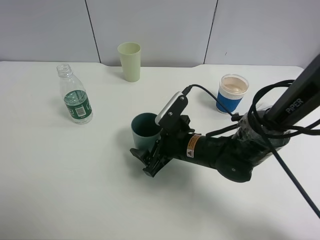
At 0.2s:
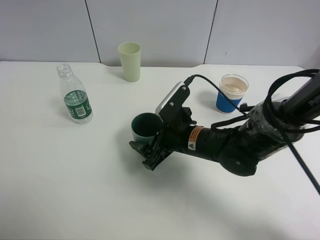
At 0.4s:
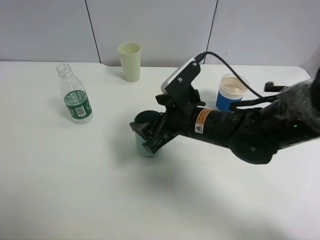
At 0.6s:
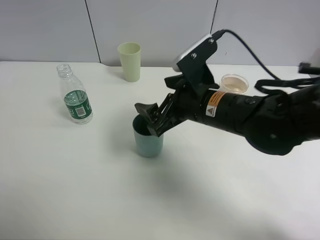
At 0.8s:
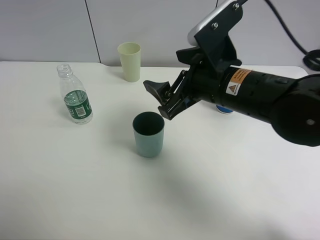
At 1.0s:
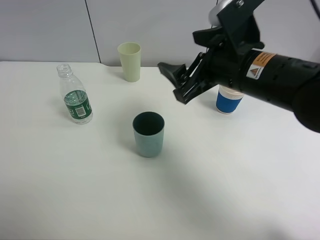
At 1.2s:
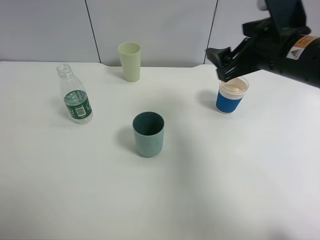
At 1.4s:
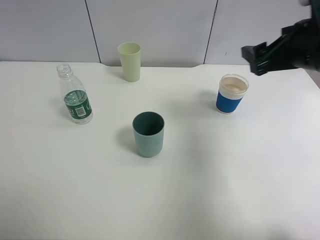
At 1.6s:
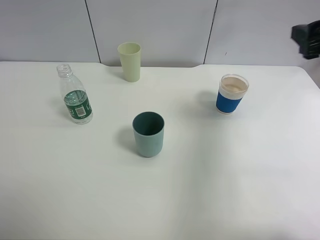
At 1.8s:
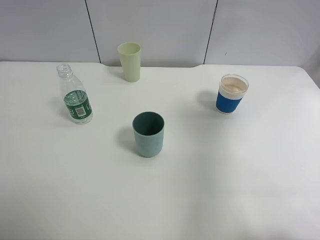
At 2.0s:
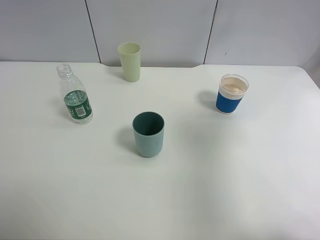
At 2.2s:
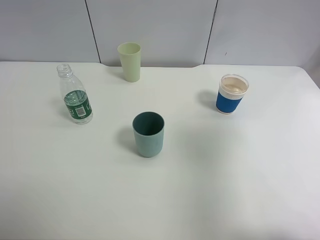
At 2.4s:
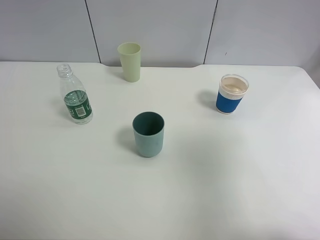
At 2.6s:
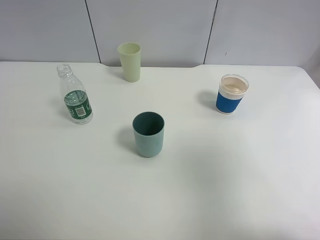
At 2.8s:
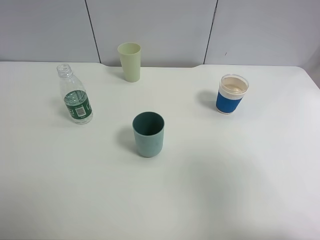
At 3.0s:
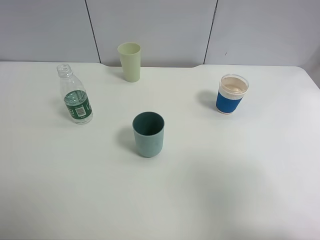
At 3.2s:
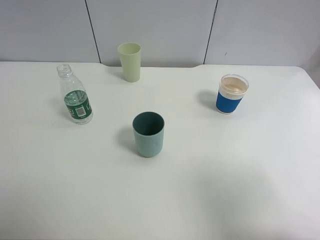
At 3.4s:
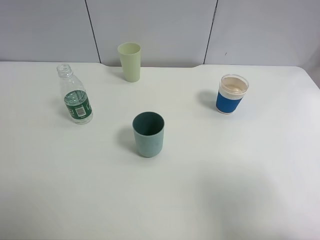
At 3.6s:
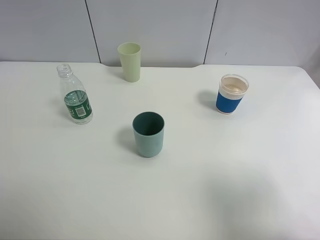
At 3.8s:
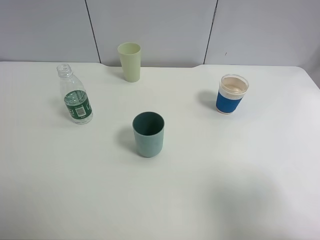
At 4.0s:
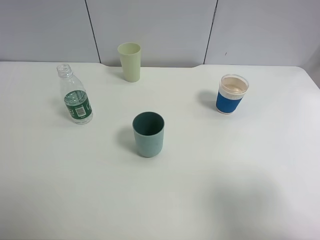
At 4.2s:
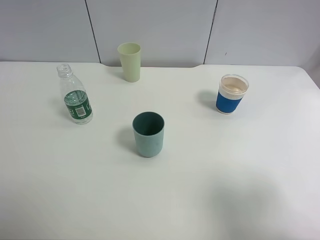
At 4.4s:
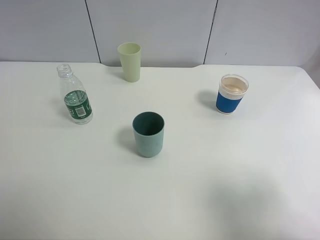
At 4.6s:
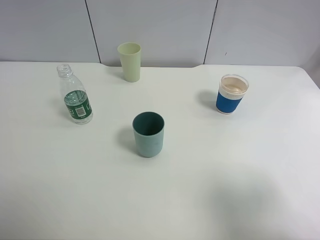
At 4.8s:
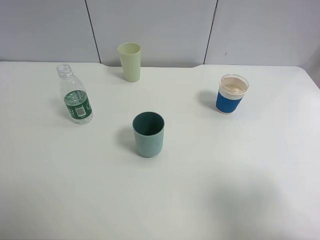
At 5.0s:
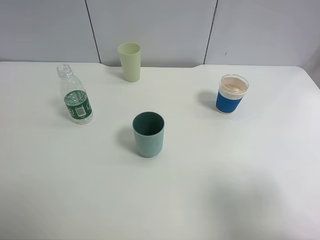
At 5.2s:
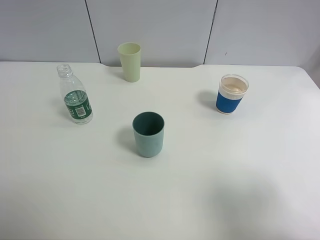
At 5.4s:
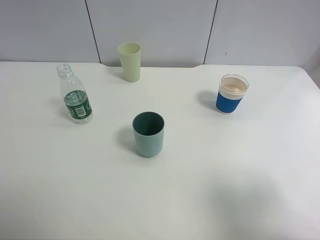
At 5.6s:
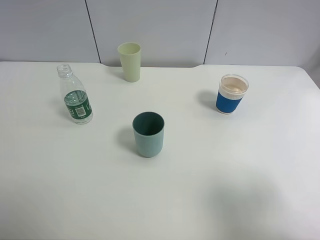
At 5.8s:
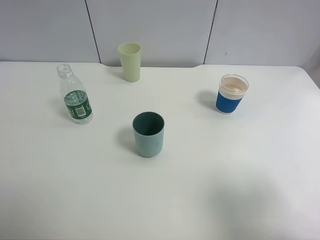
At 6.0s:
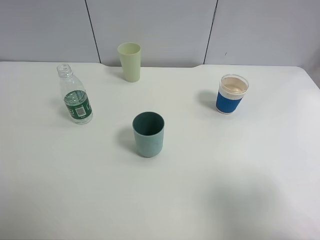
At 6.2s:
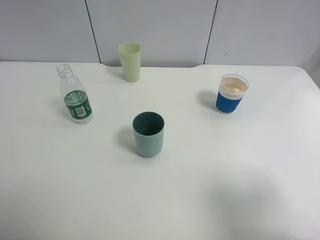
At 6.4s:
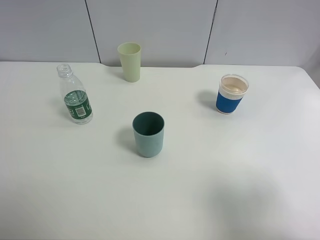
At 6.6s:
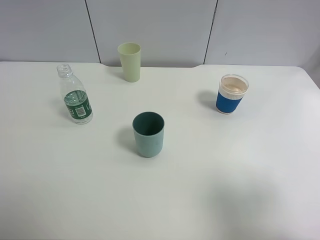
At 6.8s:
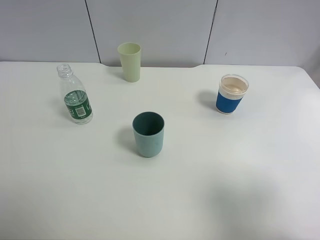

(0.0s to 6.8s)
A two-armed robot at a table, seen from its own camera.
Task of the whole recording: use a clamp to hold the bottle of the drink, pour the beverage into a random cup, then clamp the cup containing the drink and pour the drink into another random cup.
0.0s - 1.4s: The right gripper moves upward and to the right, about 25 cm.
1.4s - 2.8s: The right gripper goes some 25 cm backward.
2.8s - 4.0s: The right gripper goes roughly 5 cm downward.
4.0s - 6.8s: Both grippers stay put.

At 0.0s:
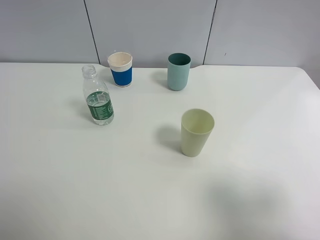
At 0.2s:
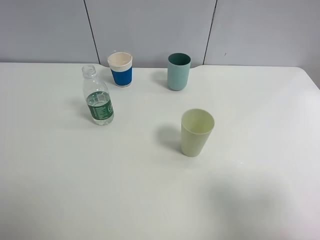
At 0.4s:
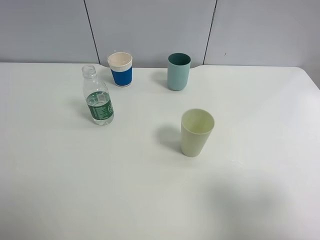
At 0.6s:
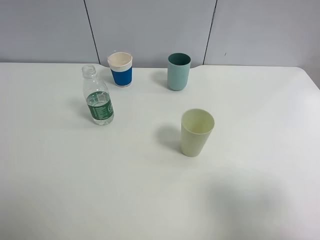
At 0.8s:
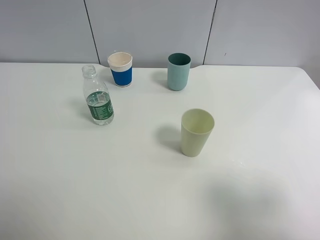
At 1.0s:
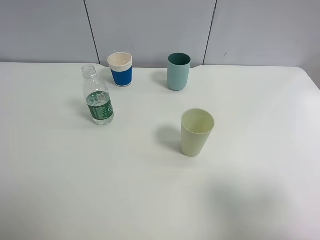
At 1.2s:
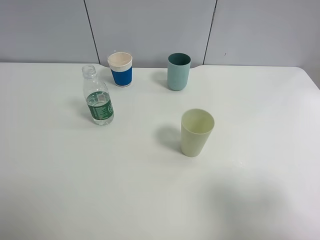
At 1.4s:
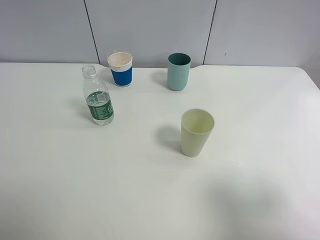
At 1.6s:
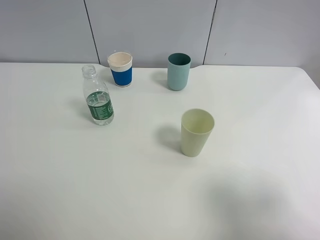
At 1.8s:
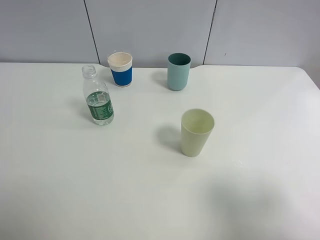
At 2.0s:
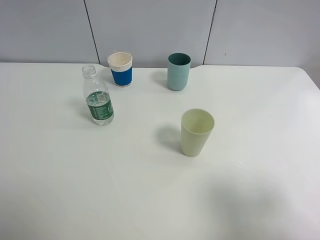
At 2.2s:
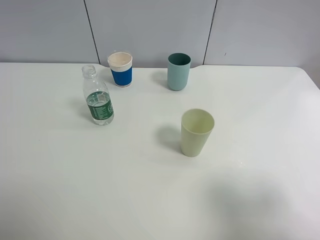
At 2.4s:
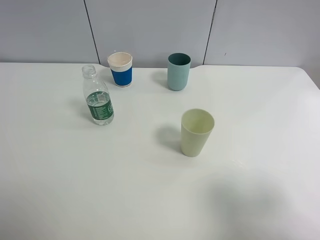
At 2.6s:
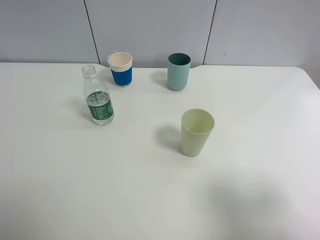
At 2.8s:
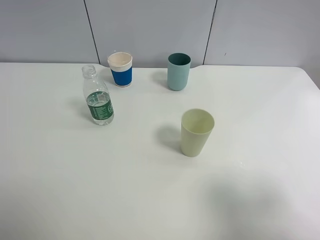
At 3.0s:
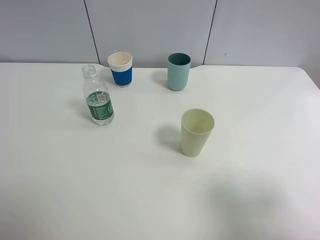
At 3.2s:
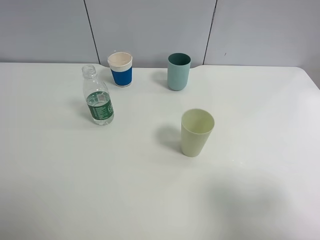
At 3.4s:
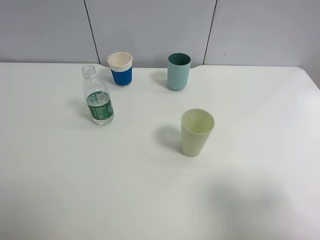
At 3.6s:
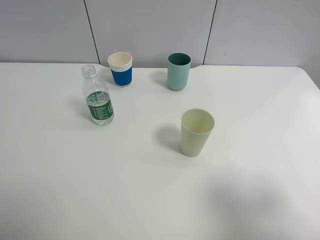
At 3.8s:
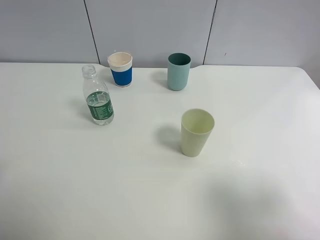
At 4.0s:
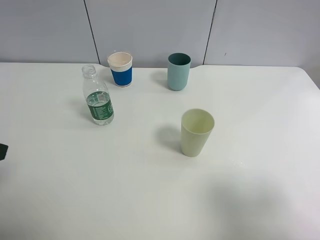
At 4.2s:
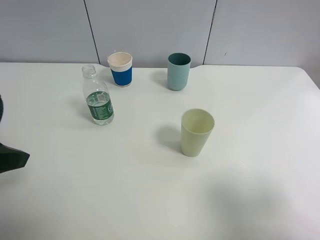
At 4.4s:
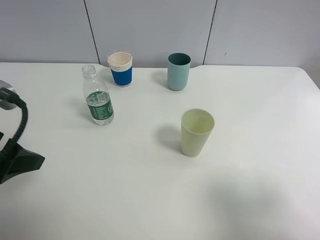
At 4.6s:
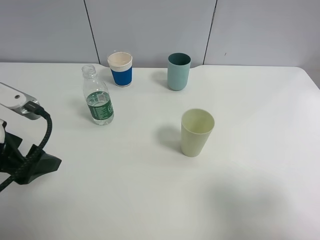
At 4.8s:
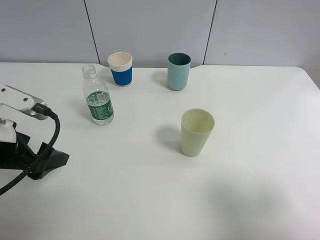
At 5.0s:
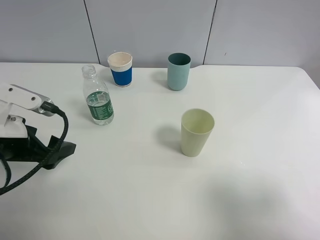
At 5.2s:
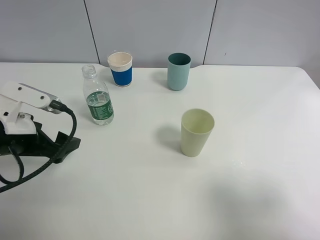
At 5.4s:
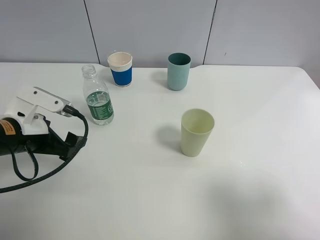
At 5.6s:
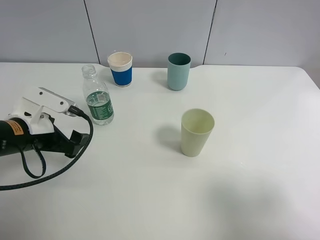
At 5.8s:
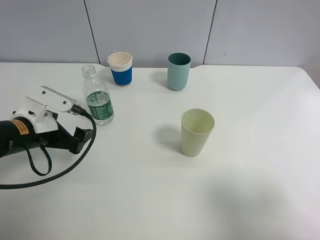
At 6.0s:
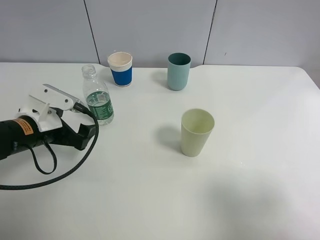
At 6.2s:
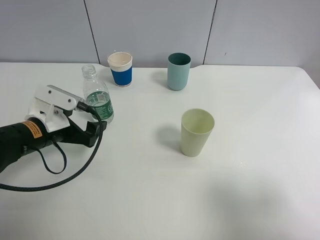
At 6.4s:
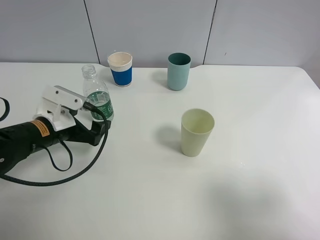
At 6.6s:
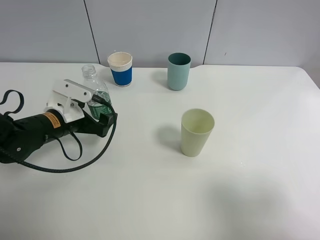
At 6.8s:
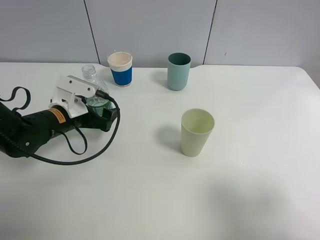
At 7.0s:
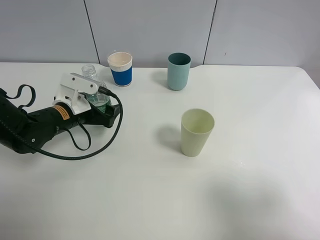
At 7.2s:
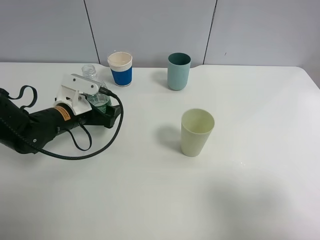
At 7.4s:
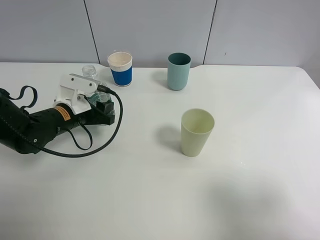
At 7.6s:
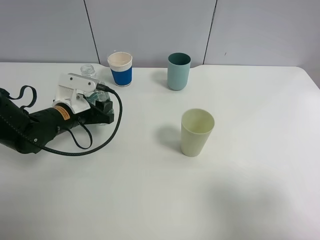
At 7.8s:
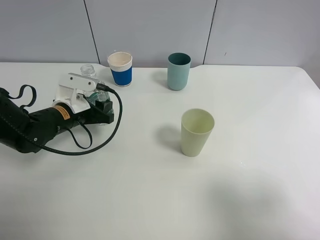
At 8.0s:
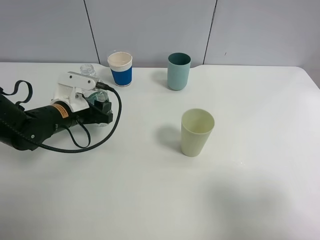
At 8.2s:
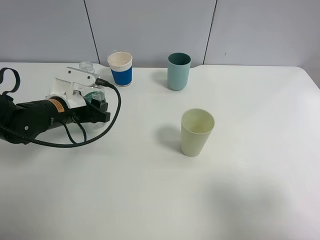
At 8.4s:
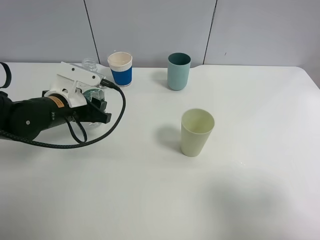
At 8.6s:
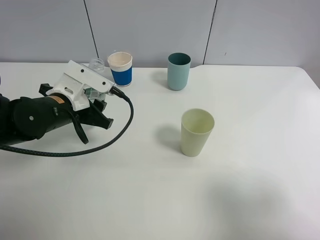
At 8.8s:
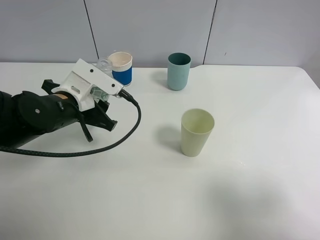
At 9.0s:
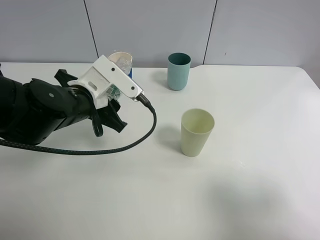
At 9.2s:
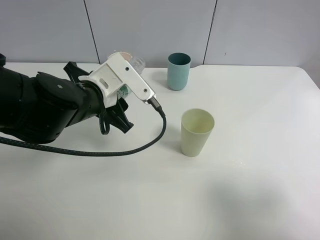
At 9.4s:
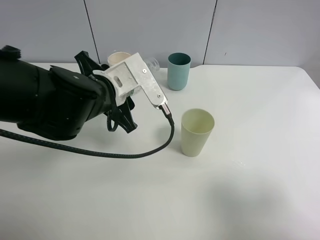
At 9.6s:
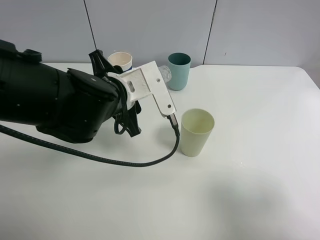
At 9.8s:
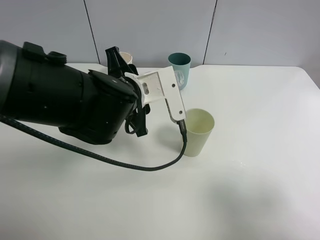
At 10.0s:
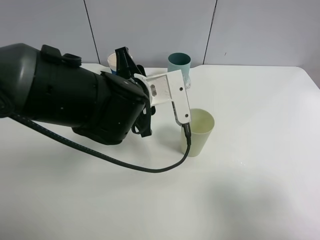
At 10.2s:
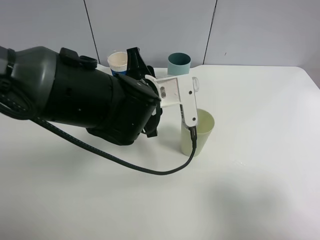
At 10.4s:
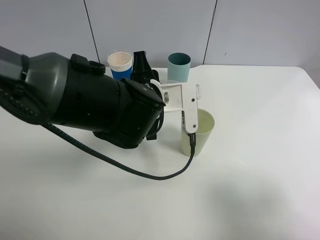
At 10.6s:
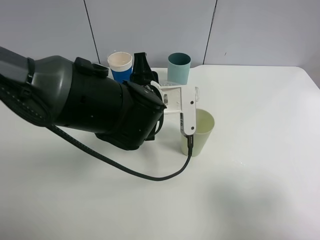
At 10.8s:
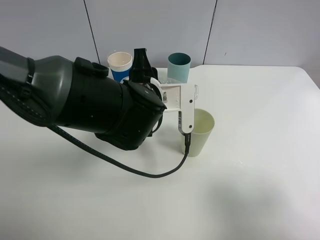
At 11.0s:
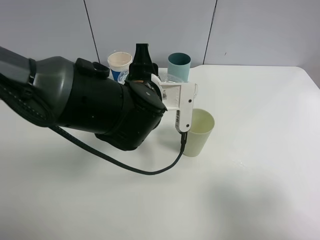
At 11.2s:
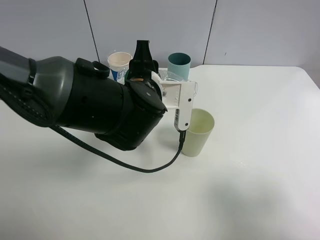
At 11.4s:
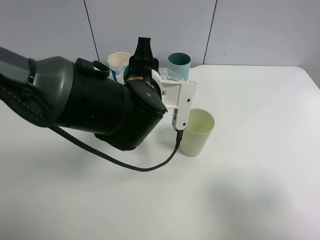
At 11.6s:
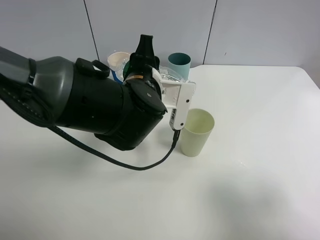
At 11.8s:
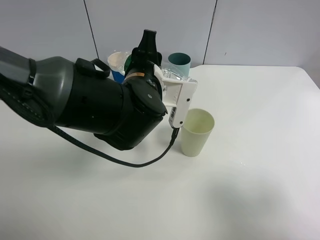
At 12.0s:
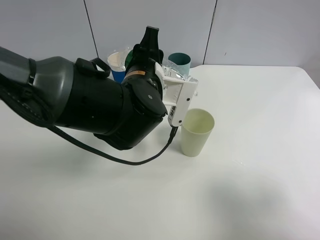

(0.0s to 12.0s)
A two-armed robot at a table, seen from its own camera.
Task of the whole recording: use a clamp to hold the bottle of the drink, pour the beverage into a random cup, then clamp the cup containing the drink and pour the drink into another random cup.
Step, 0.0s - 8.2s: Pick up the water bottle with left gripper.
0.0s - 3.0s: Neither gripper changes place.
3.0s - 4.4s: The left gripper shifts roughly 15 cm forward and to the right.
4.4s - 6.0s: The left gripper is displaced downward and forward by some 15 cm.
6.0s - 7.6s: The left gripper goes some 5 cm forward, and closes.
7.6s - 9.0s: The left gripper moves upward and to the right, about 10 cm.
9.0s - 10.4s: The left gripper shifts approximately 10 cm to the right.

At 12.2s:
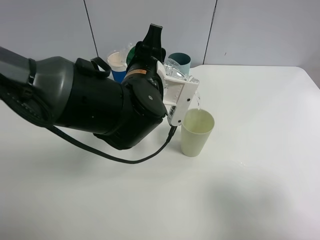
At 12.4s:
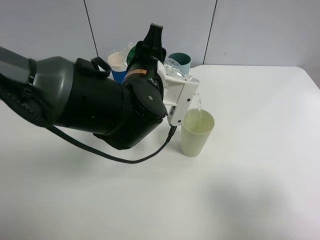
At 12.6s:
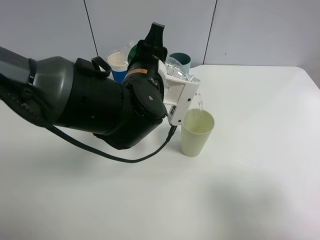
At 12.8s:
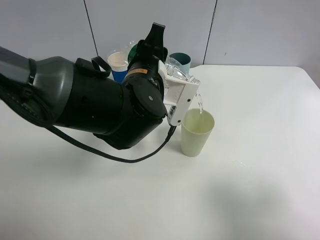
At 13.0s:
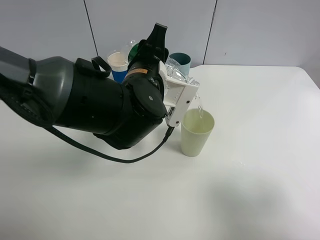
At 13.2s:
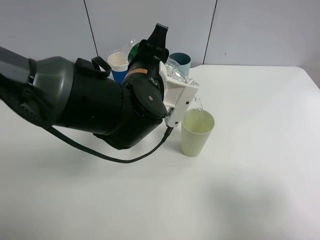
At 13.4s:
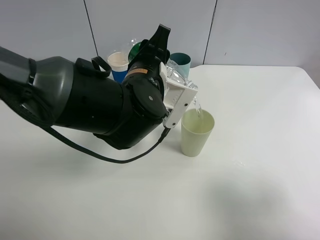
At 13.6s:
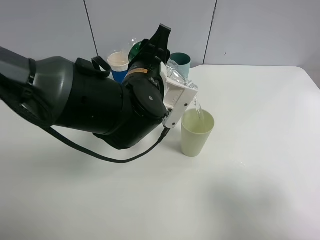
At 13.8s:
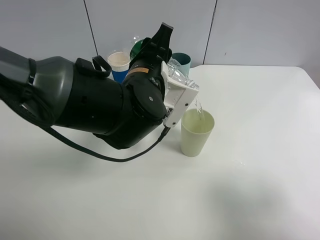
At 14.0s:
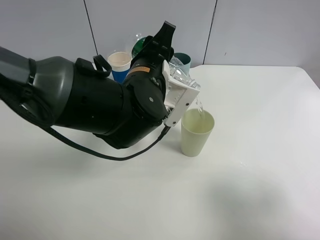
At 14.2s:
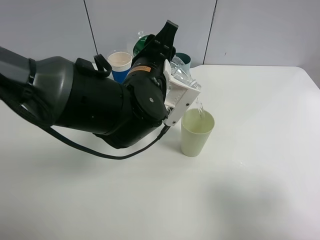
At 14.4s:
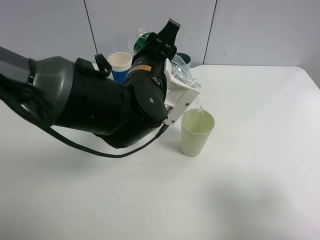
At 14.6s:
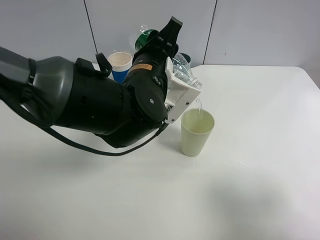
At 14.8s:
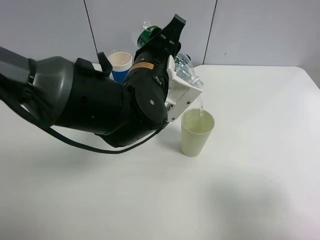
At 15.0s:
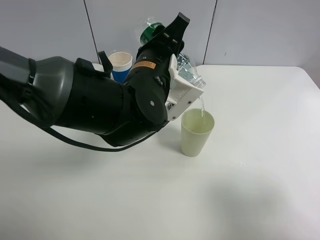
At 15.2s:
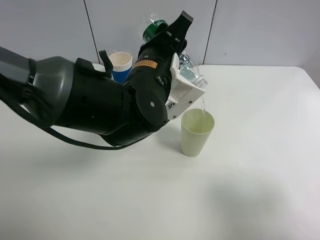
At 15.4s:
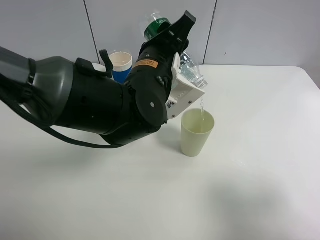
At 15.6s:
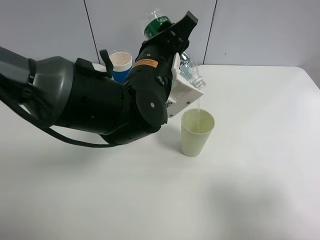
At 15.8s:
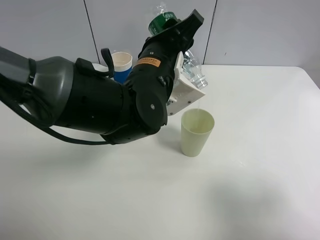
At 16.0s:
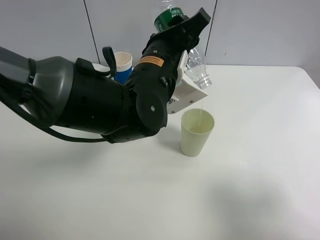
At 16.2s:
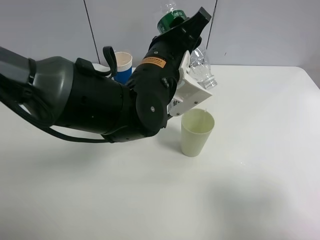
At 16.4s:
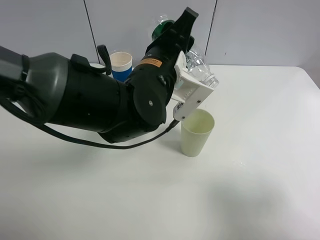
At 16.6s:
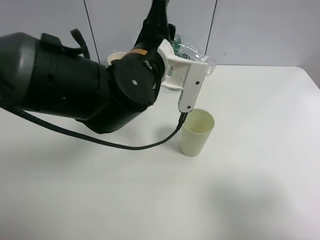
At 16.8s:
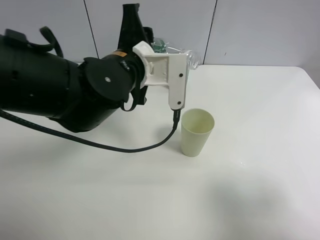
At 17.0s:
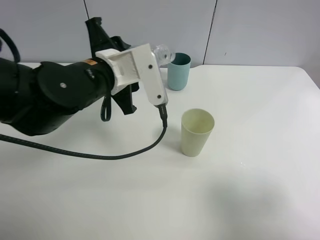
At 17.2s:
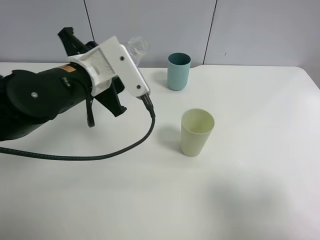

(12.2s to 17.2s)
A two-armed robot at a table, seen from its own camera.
Task of the whole recording: use a clamp to hold the bottle of the drink, pour the beverage into a random cup, then clamp the cup containing the drink and pour the drink into another random cup.
Step, 12.2s - 16.4s: Pour water into the paper cup with left gripper.
12.2s - 13.8s: The grippers move only a little.
13.8s - 15.6s: There are only small adjustments of the grippers.
15.6s - 17.2s: The left gripper travels to the left by approximately 10 cm.
